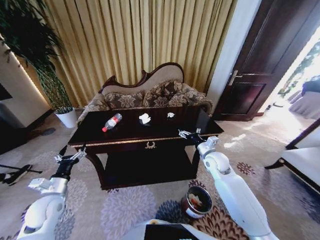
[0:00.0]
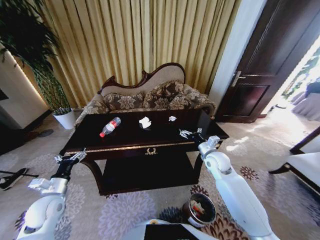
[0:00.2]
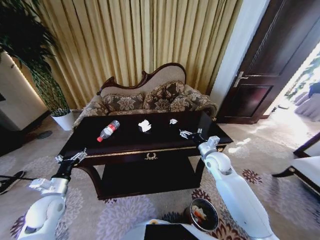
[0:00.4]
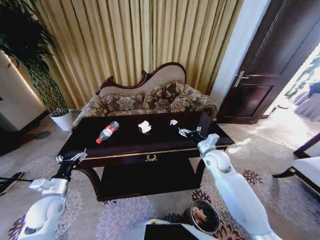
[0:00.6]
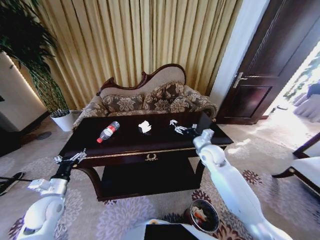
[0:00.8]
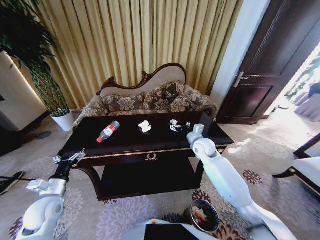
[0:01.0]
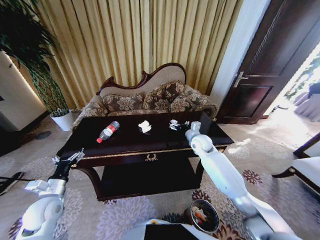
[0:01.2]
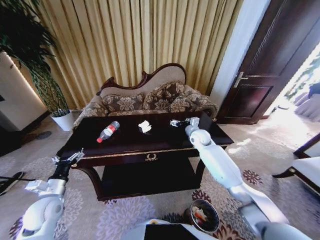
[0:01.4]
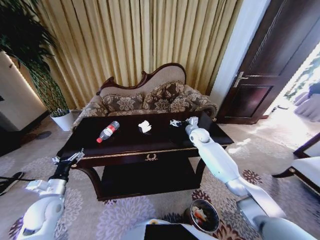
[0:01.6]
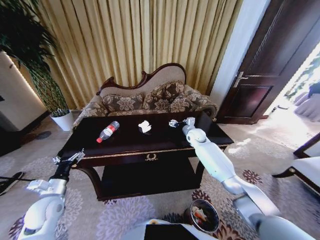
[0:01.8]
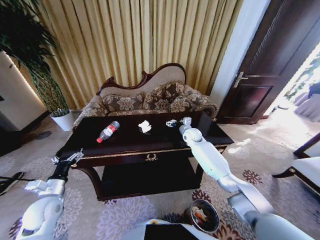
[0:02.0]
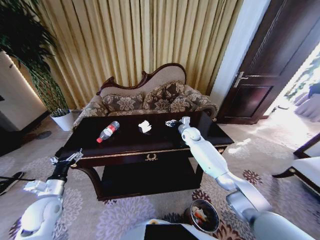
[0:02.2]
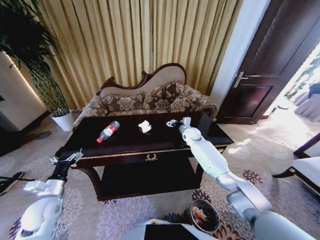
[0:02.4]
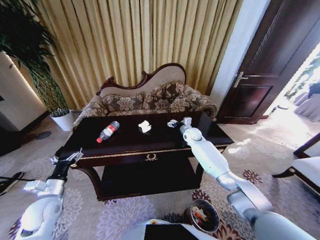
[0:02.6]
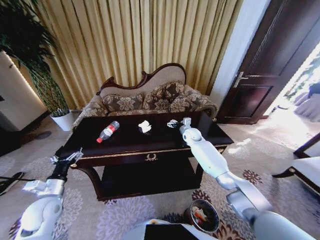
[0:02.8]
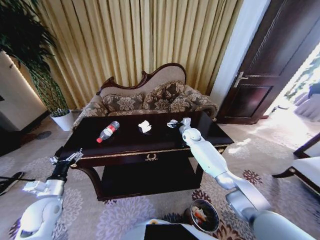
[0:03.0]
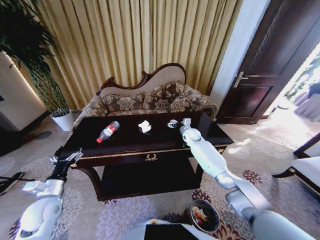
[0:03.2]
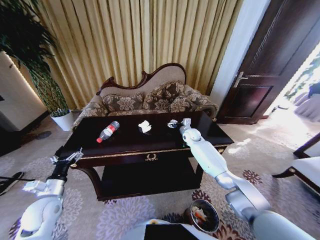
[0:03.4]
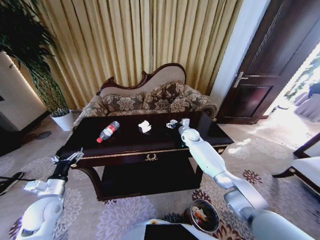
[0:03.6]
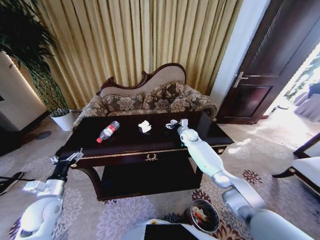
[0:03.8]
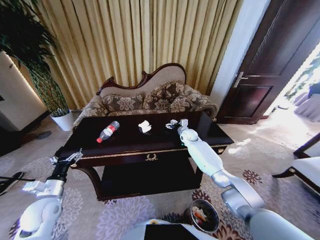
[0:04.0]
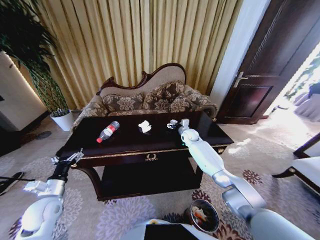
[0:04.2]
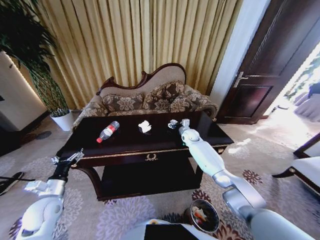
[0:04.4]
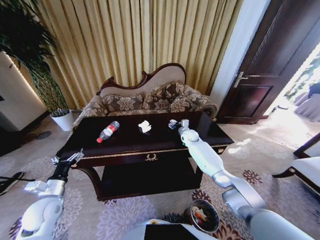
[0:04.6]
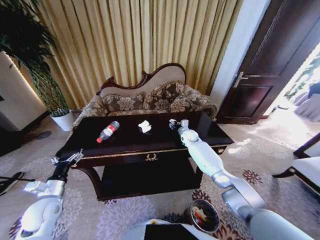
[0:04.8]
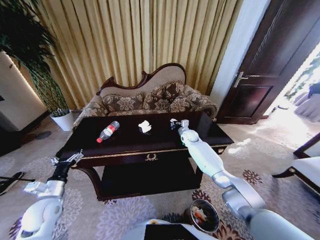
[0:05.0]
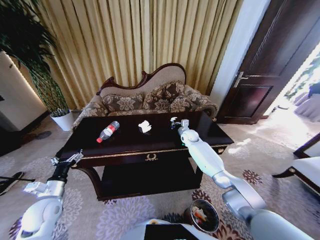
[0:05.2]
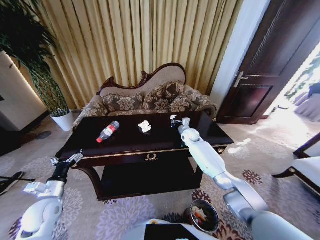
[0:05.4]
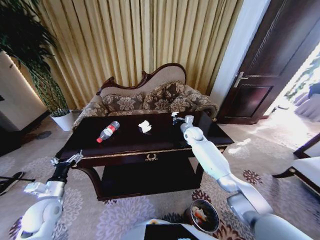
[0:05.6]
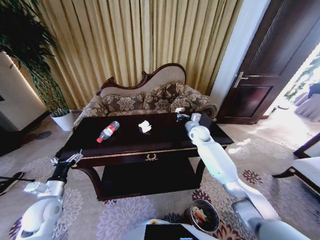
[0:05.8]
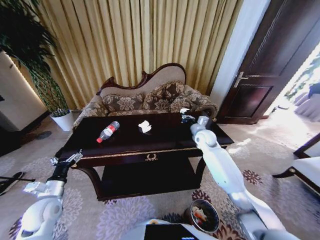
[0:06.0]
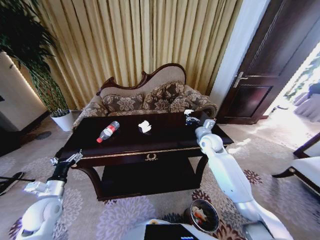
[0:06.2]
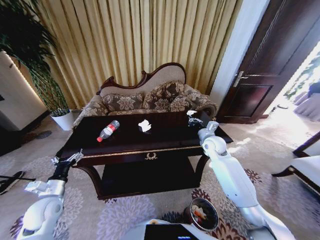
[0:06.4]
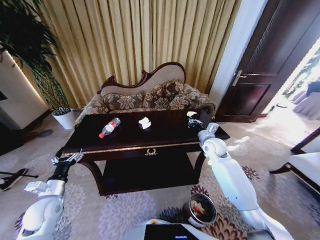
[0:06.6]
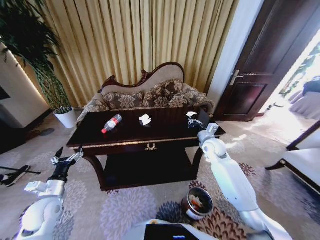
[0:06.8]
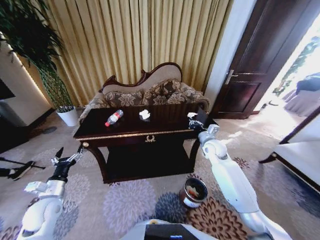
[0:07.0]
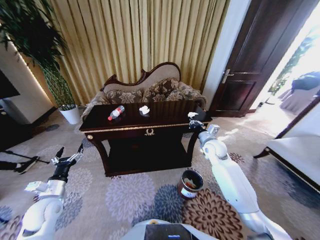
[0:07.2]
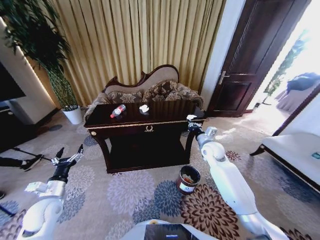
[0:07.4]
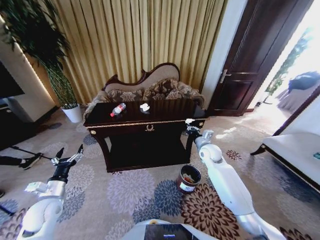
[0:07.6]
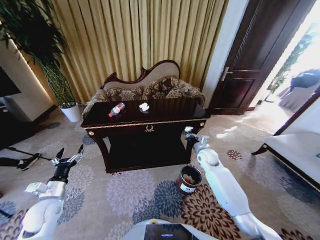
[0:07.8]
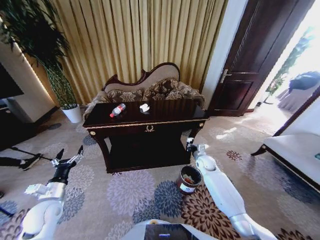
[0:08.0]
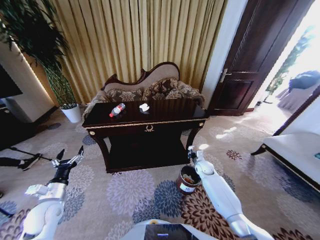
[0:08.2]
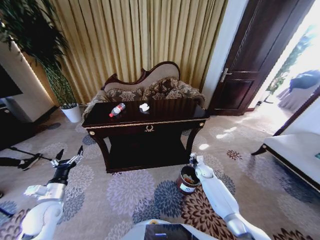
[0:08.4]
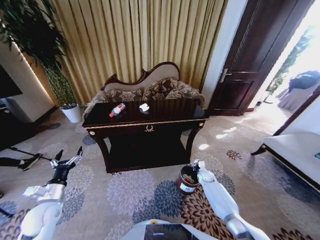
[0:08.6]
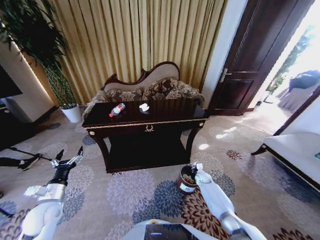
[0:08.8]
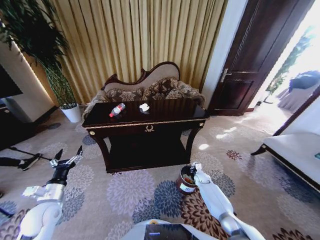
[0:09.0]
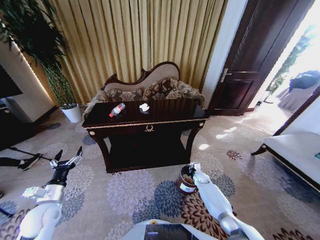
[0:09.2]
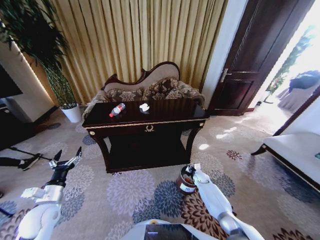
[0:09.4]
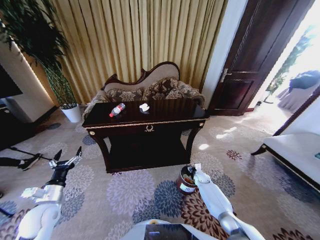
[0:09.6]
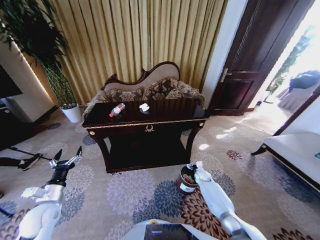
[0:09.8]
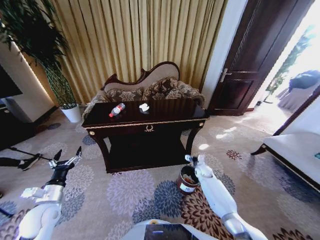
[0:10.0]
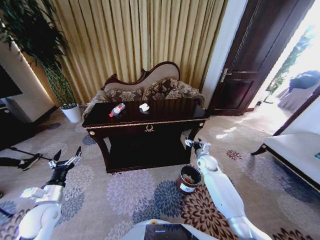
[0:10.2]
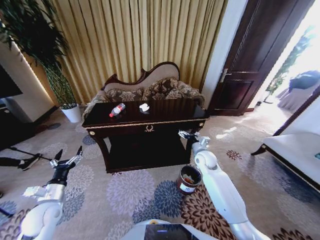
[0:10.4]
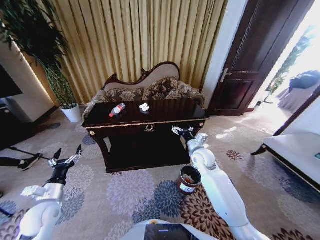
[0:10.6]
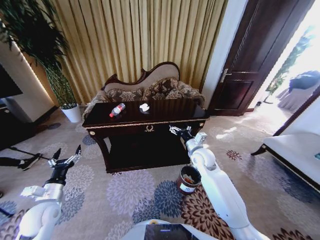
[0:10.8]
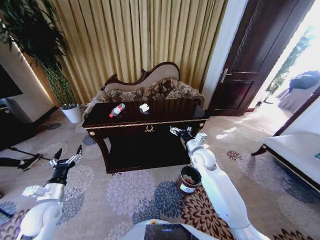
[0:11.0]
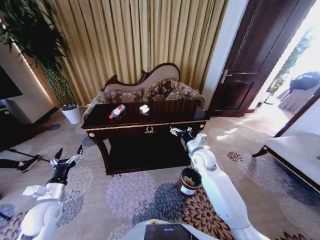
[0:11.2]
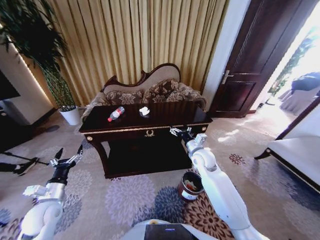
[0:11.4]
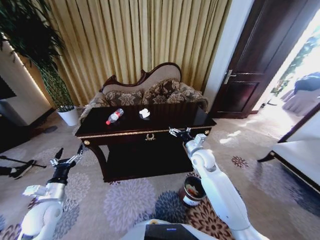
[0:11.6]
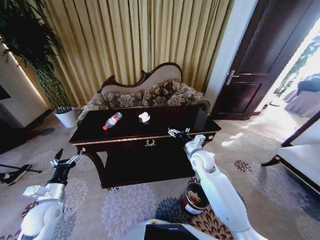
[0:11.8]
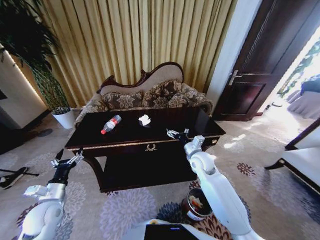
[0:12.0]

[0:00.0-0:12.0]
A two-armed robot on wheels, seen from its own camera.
Task of the whole recording: Move to the front of the table and place the trash on the table into the trash bin.
0:00.0 to 0:01.6: The right gripper is displaced forward by some 15 cm.
0:01.6 to 0:03.0: The grippers make only small movements.
0:03.0 to 0:04.4: The grippers stay close to where they were, moving slightly.
0:04.4 to 0:06.0: The right gripper moves backward and upward, approximately 10 cm, and closes.
0:06.0 to 0:07.6: The right gripper moves backward, some 5 cm.
0:07.6 to 0:09.0: The right gripper is displaced downward by roughly 25 cm.
0:09.0 to 0:10.4: The right gripper is displaced upward by some 25 cm, and opens up.
0:10.4 to 0:12.0: The right gripper goes roughly 10 cm to the left and upward.

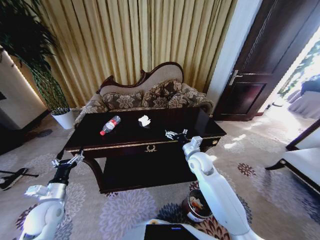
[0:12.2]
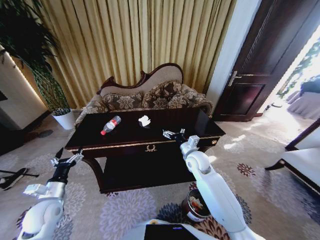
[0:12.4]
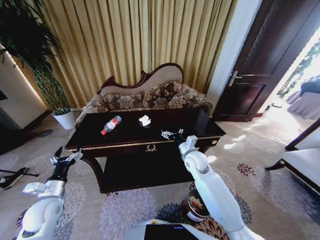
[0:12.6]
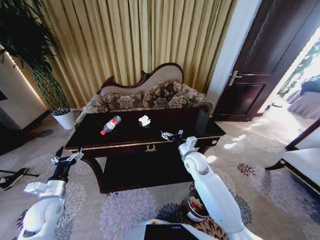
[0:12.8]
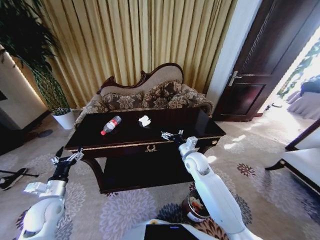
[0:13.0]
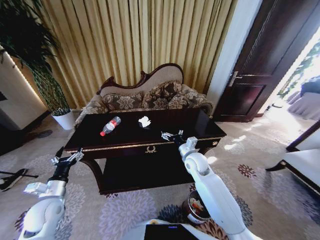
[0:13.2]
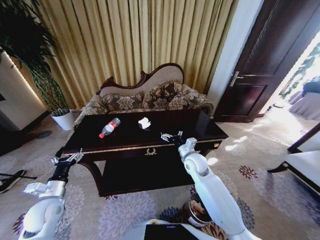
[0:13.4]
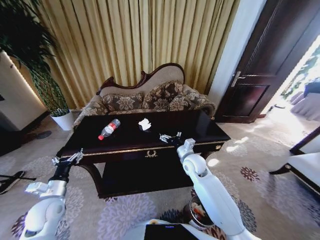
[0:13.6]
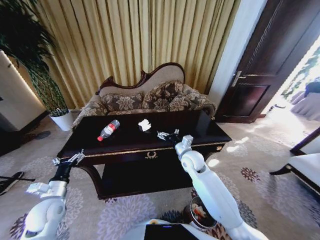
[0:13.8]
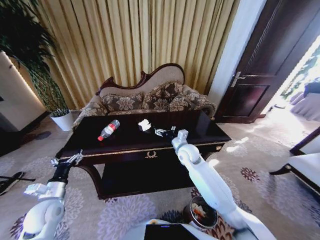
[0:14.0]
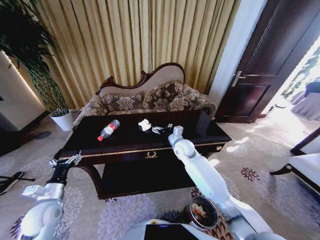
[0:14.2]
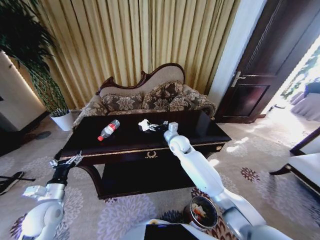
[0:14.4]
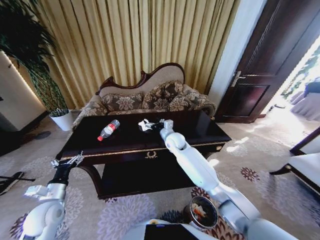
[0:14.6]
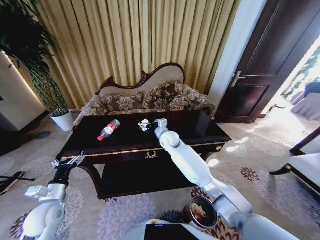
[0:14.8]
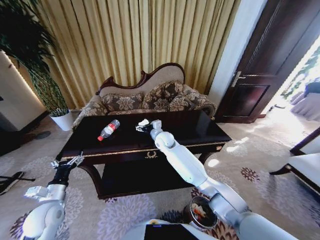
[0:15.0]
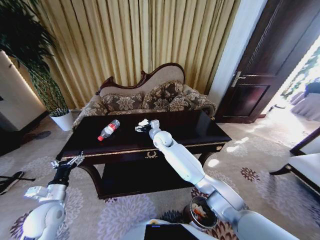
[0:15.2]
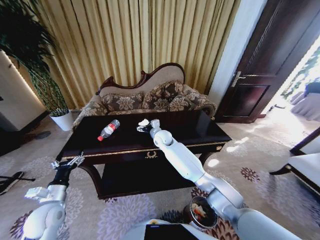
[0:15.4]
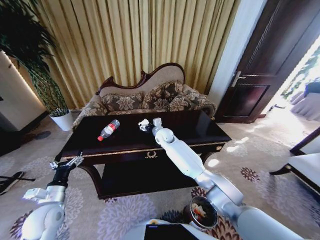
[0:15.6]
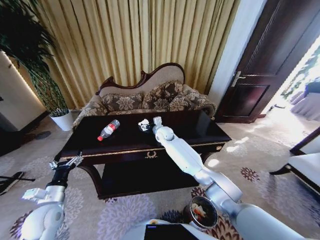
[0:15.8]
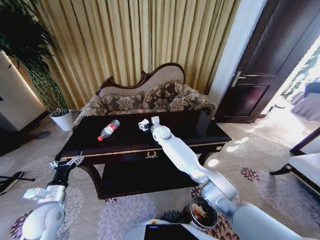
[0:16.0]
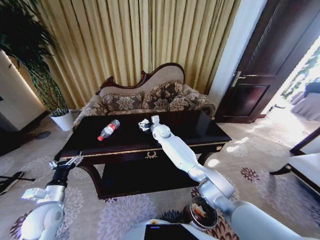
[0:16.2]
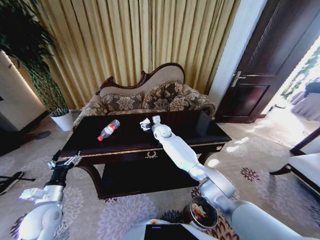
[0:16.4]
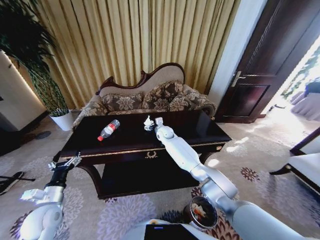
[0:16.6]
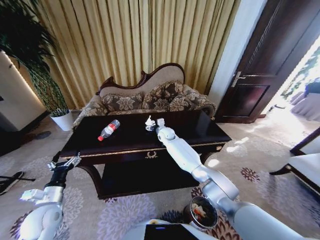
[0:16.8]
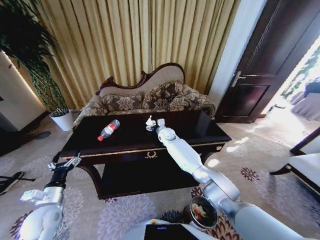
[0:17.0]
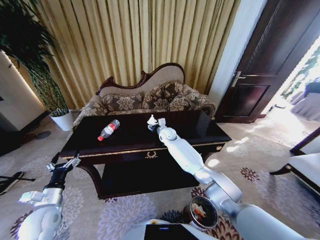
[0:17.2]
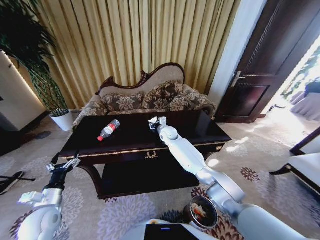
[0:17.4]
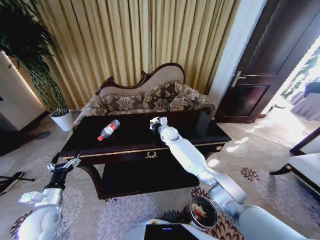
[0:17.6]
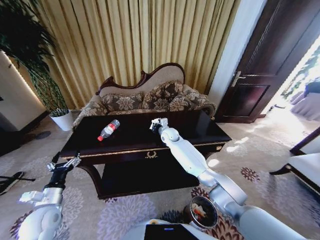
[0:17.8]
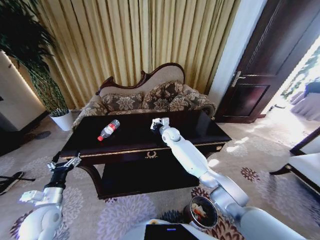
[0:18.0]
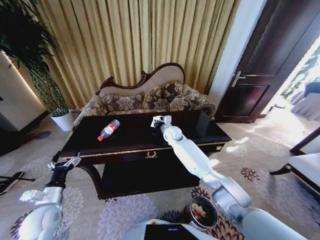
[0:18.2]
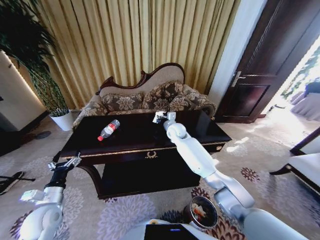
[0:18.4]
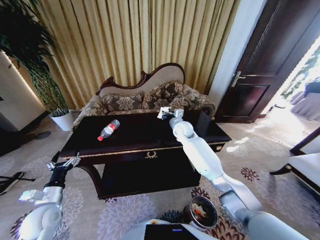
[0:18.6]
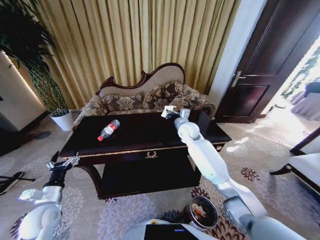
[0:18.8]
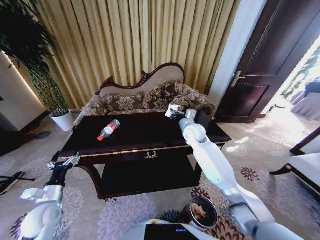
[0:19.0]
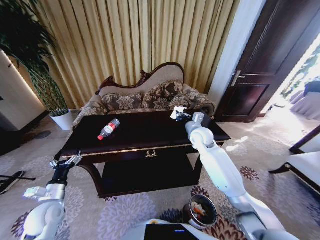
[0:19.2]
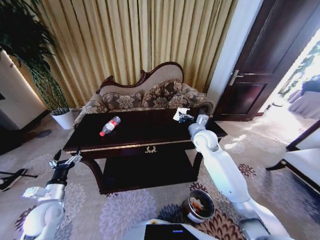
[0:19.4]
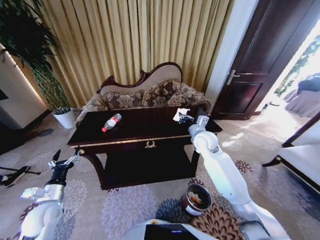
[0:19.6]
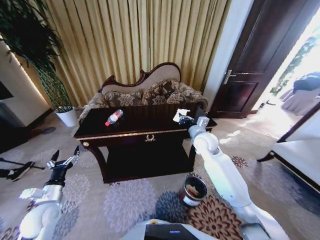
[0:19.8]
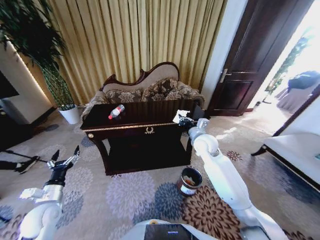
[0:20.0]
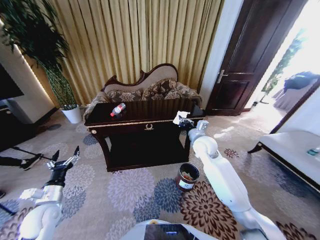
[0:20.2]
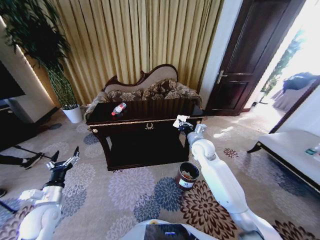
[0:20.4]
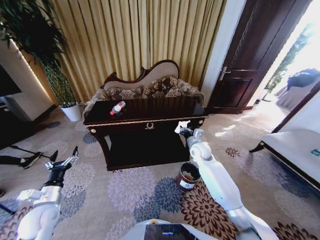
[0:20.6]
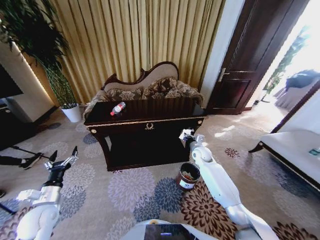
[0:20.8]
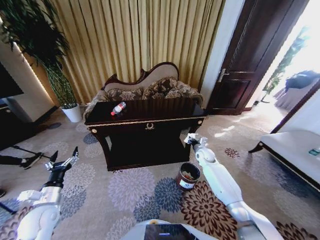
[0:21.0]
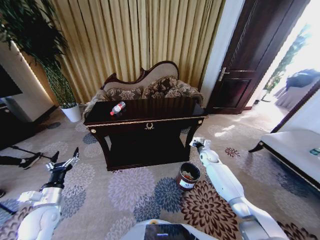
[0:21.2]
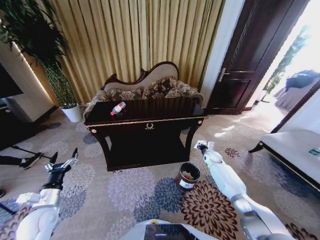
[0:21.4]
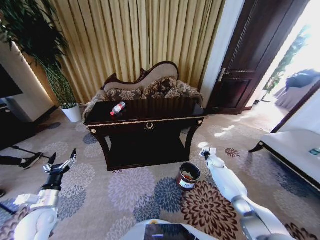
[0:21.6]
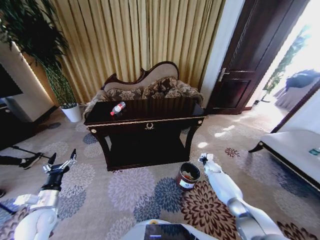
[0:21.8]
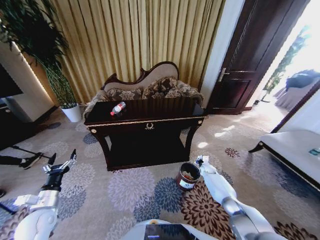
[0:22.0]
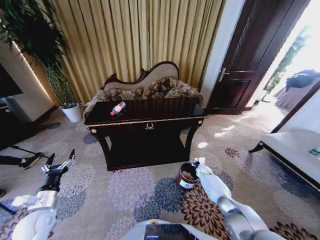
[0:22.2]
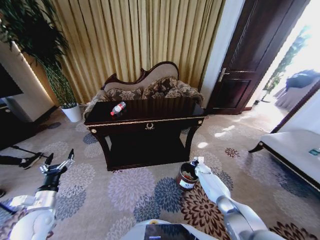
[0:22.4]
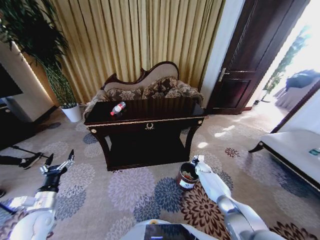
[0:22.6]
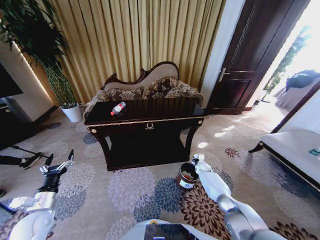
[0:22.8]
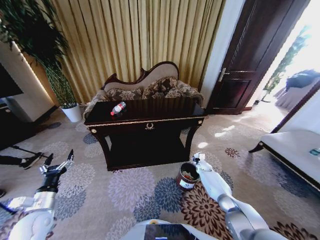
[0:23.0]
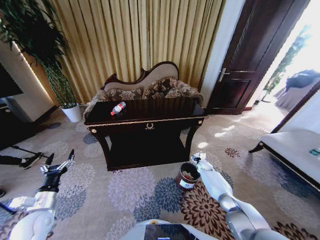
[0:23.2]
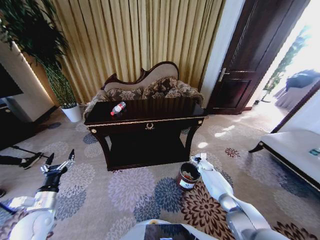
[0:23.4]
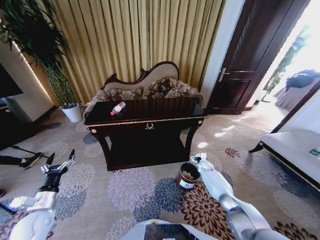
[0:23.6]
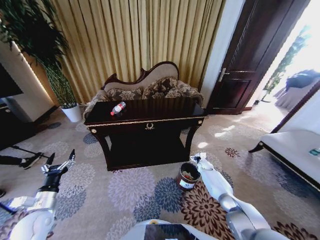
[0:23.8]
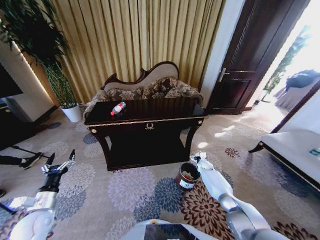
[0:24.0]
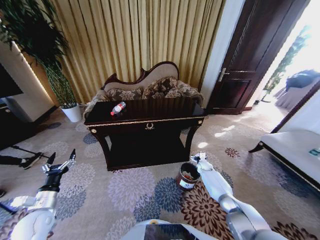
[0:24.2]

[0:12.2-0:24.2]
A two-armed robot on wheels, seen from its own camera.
Task of the whole recording: Move to the front of the table and place the trash on the table into the trash bin.
0:13.8 to 0:15.2: The right gripper travels to the left and forward by roughly 15 cm.
0:15.2 to 0:16.6: The right gripper shifts some 10 cm forward.
0:16.6 to 0:18.2: The right gripper shifts by roughly 5 cm, and closes up.
0:18.2 to 0:19.8: The right gripper is displaced to the right and backward by roughly 15 cm.
0:19.8 to 0:21.2: The right gripper heads downward and to the right, covering some 25 cm.
0:21.2 to 0:22.6: The right gripper heads downward, covering some 10 cm.
0:22.6 to 0:24.2: The right gripper opens.
